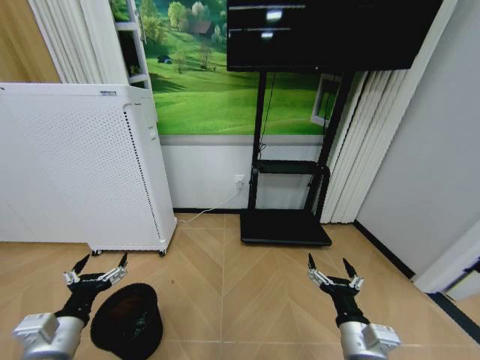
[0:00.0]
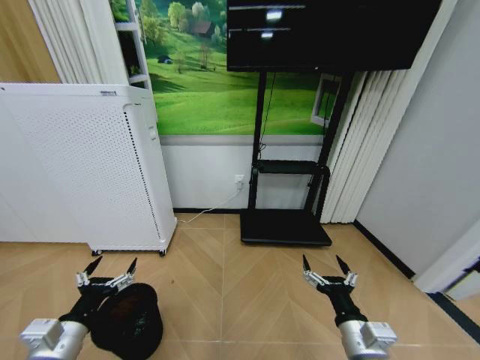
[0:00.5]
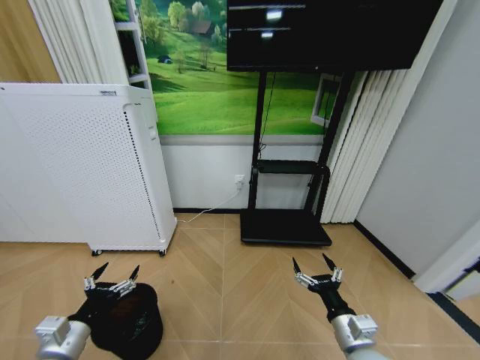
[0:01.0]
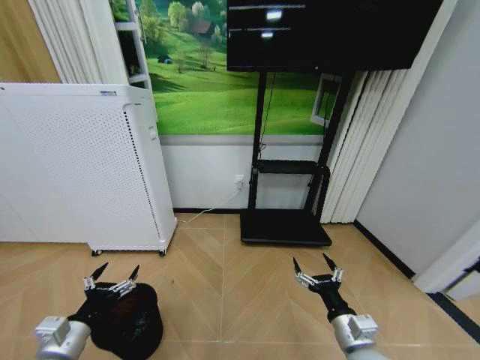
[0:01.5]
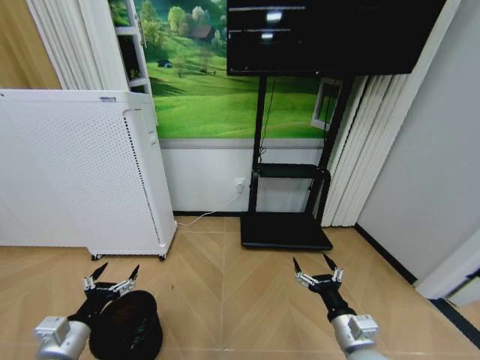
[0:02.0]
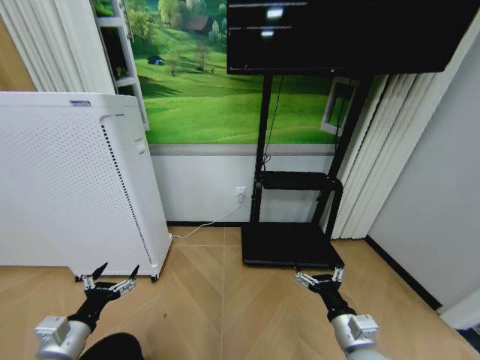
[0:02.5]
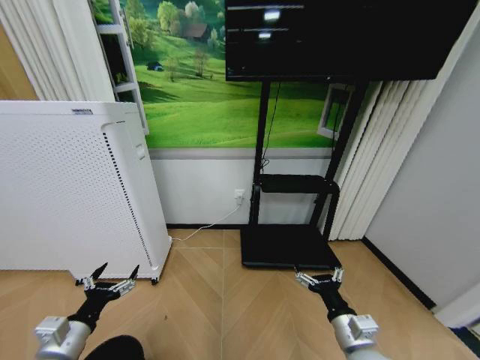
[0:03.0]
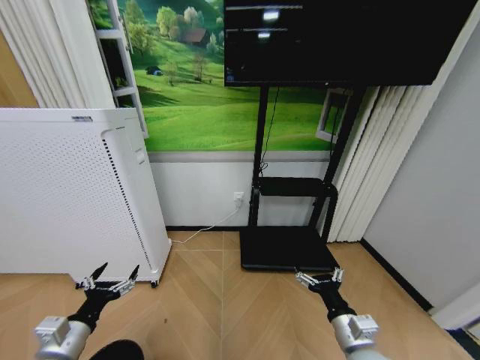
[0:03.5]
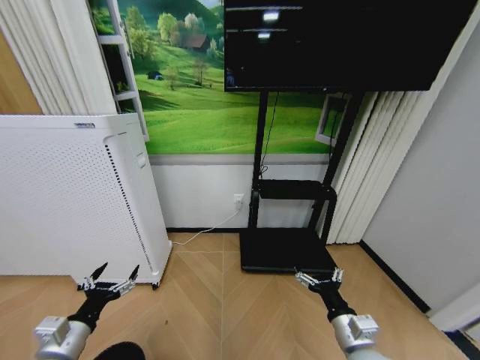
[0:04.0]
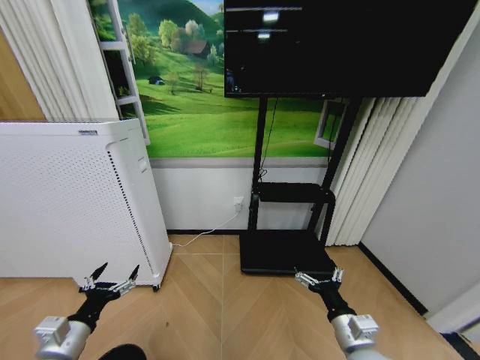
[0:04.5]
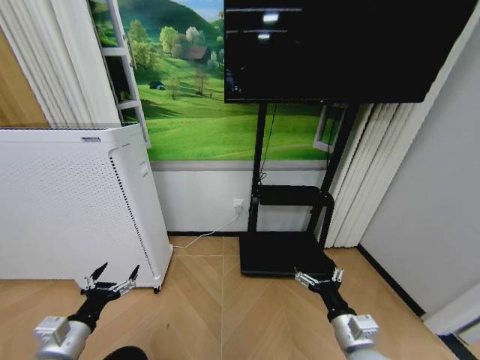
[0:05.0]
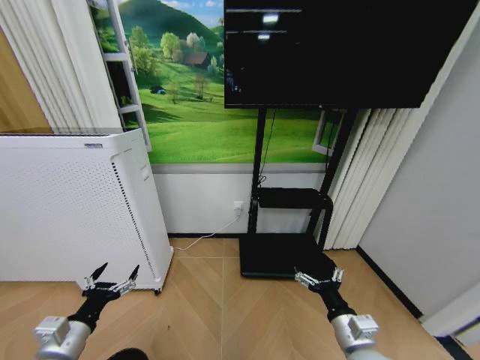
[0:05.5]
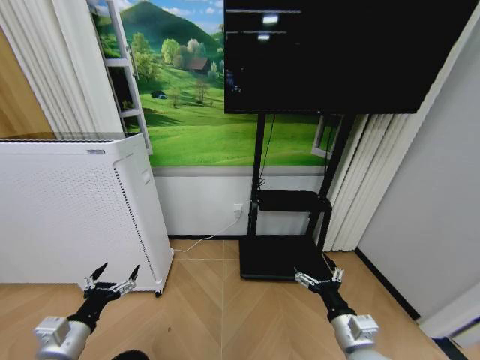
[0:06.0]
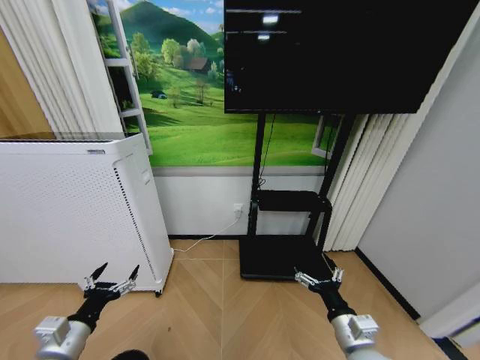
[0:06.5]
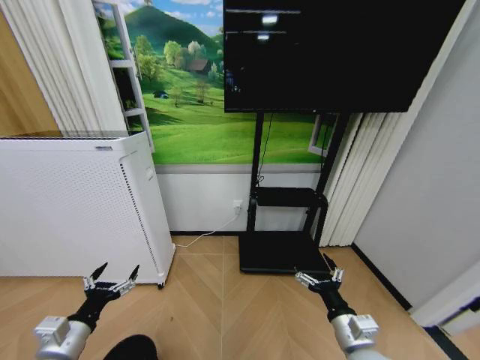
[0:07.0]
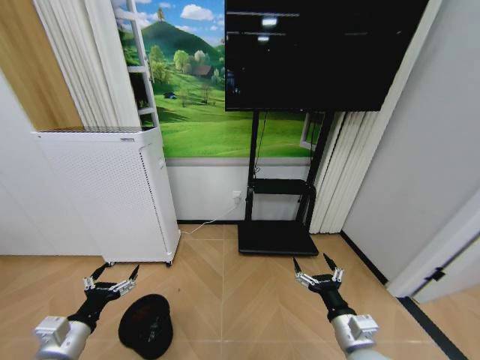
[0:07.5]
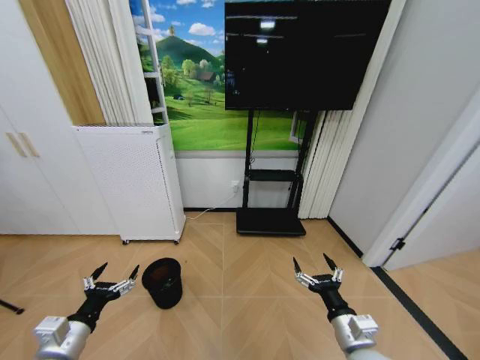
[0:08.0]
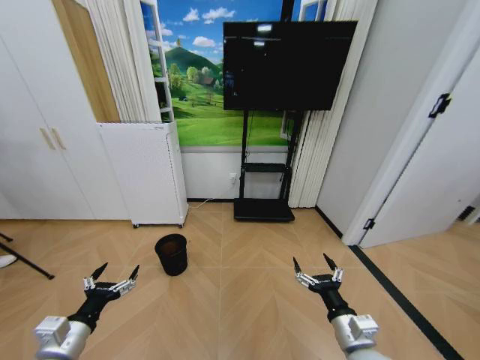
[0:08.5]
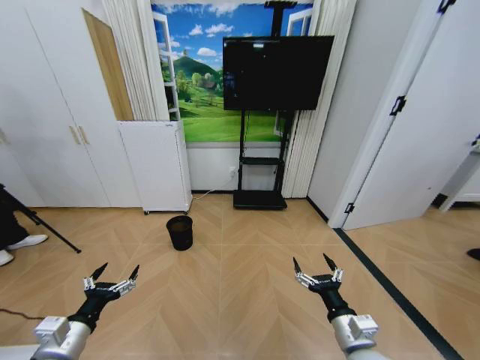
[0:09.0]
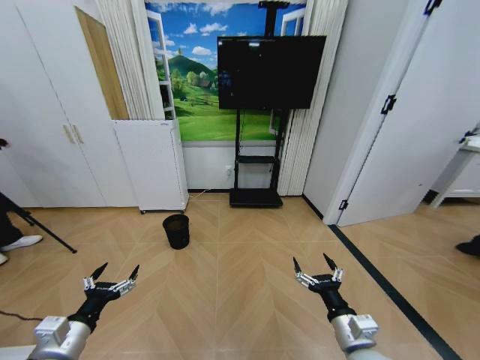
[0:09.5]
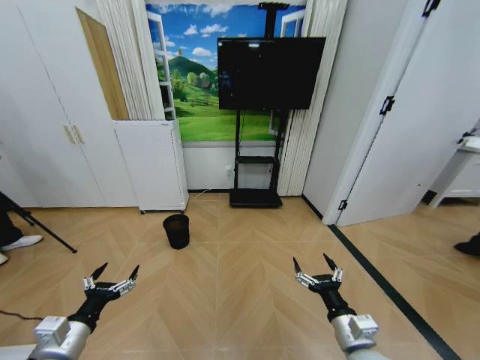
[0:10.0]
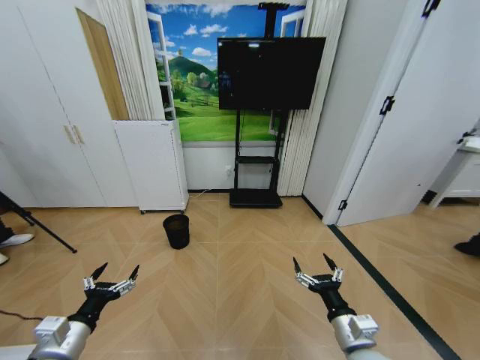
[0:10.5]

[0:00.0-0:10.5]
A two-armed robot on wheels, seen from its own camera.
Task of the whole recording: Pick up the trash bin and place the garbage on the floor into it.
0:00.0 to 0:02.0: The left gripper shifts by roughly 5 cm.
0:04.0 to 0:06.5: Both grippers stay about where they are.

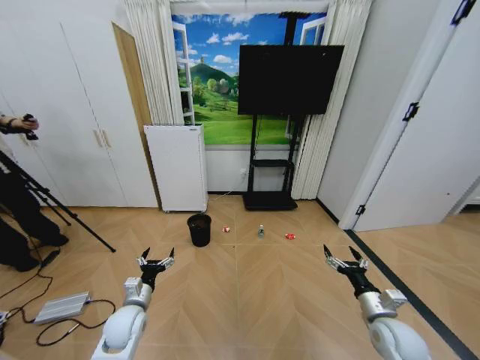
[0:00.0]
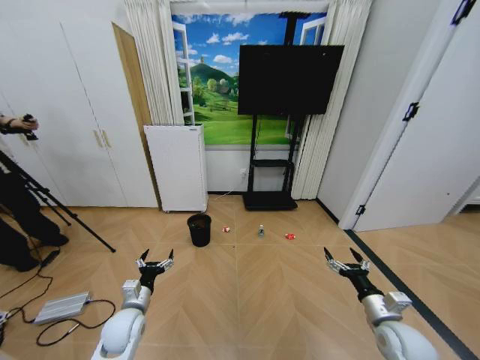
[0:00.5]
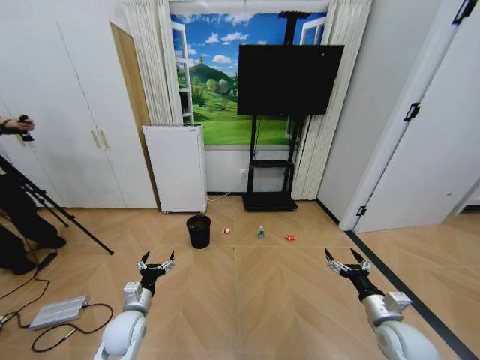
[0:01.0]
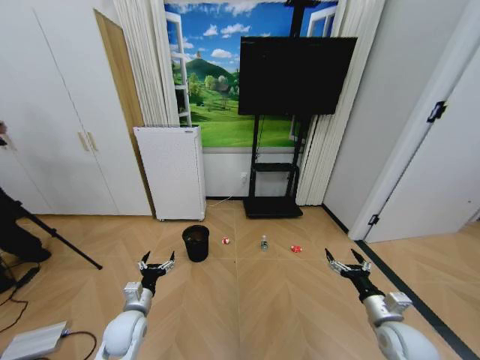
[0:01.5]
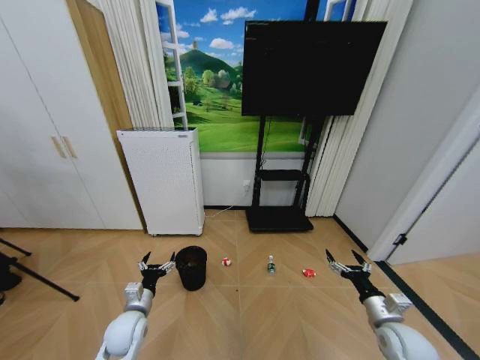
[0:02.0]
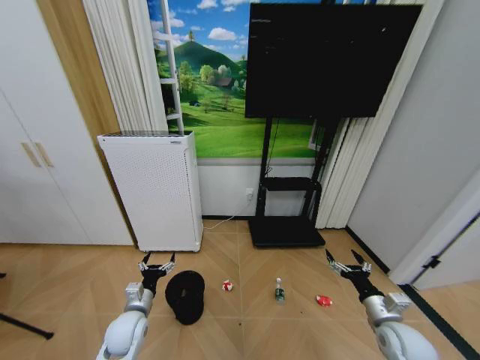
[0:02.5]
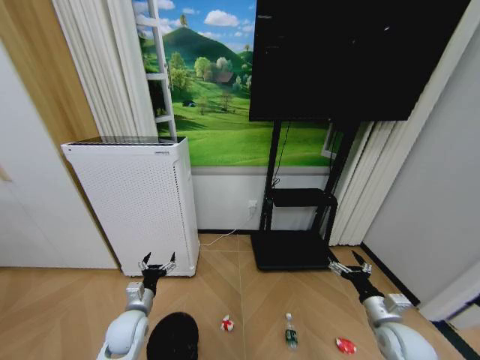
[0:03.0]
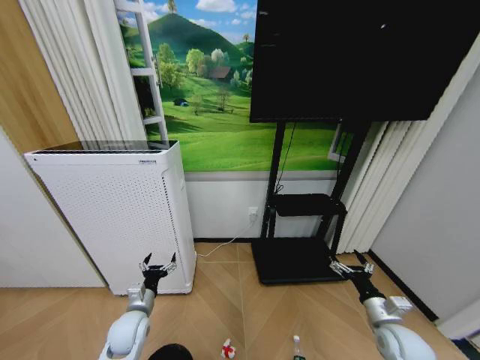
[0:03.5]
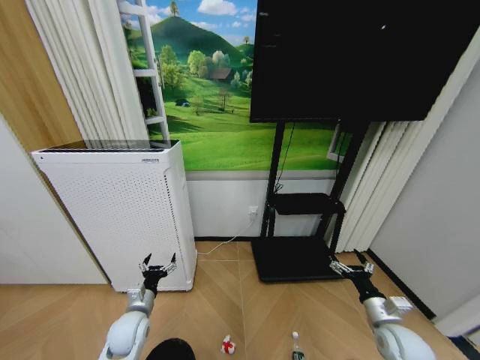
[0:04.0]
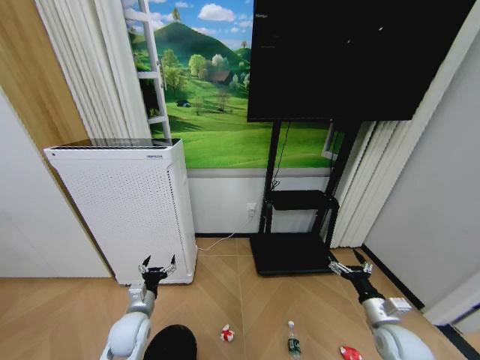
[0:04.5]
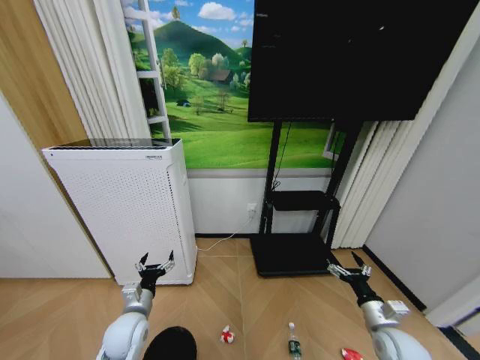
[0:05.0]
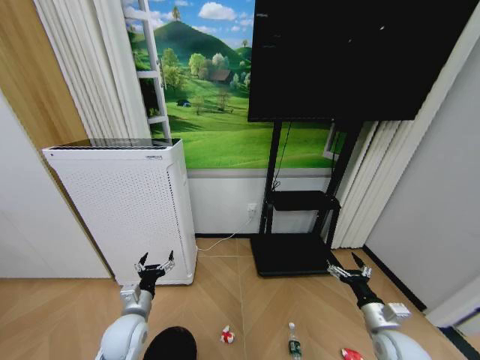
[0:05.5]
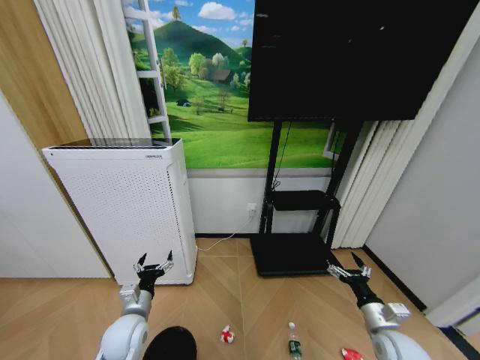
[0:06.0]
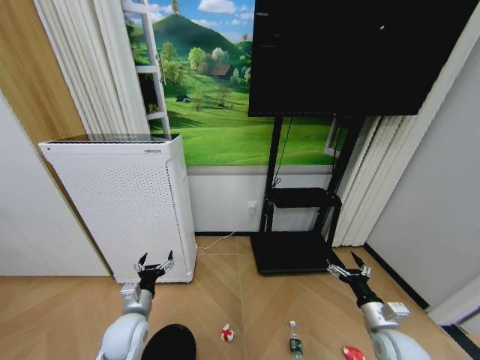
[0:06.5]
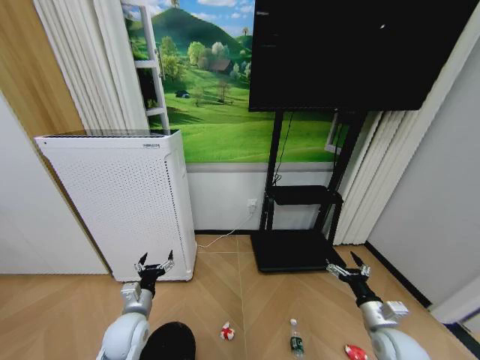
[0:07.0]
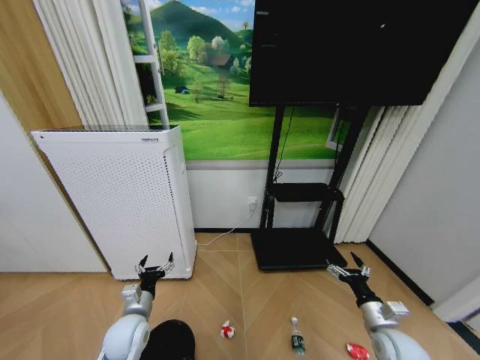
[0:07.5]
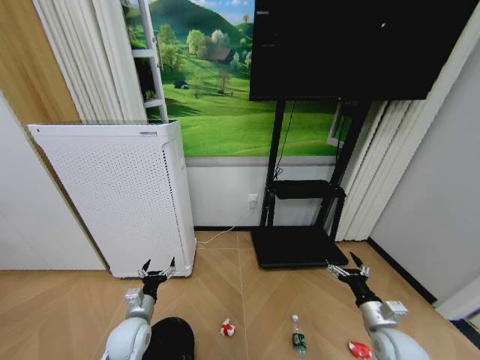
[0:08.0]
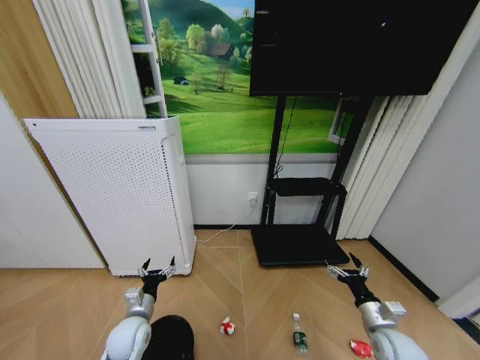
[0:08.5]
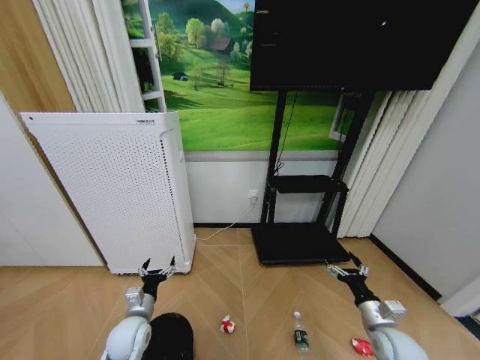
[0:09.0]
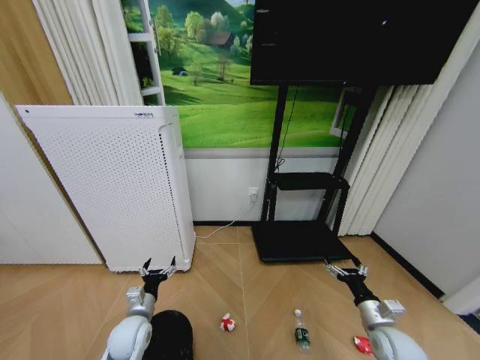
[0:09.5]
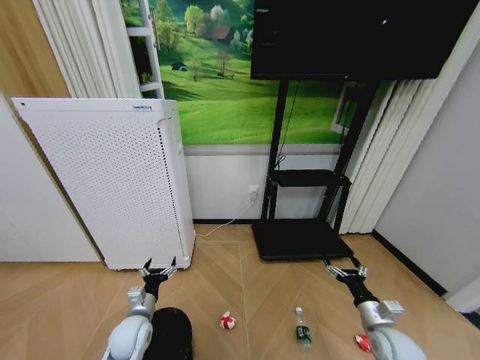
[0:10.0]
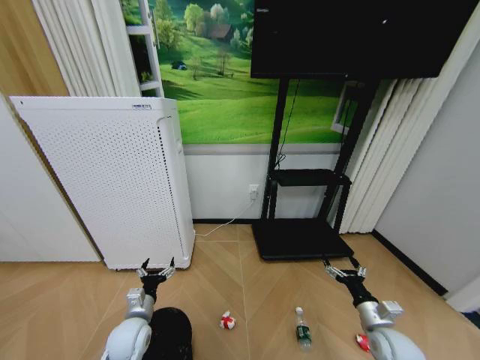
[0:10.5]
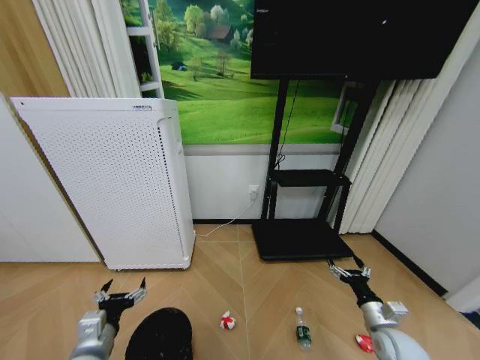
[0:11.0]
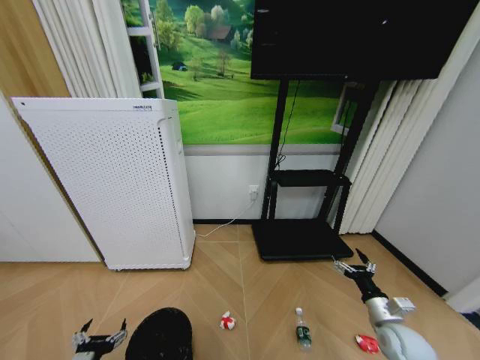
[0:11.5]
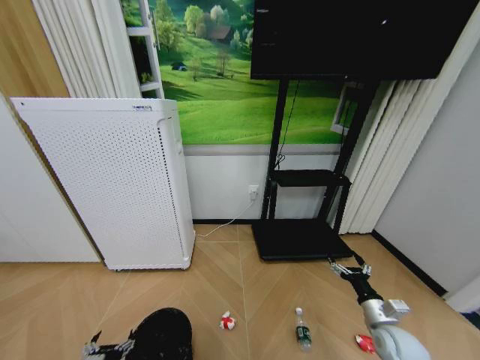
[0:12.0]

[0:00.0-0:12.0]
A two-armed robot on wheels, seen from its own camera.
Task of the whole recording: Pick up the trash bin and place the garbage on the floor into it.
0:04.0 to 0:06.0: The grippers stay close to where they were, moving slightly.
0:08.0 to 0:10.0: Both grippers stay about where they are.
0:10.0 to 0:12.0: The left gripper goes some 15 cm backward.

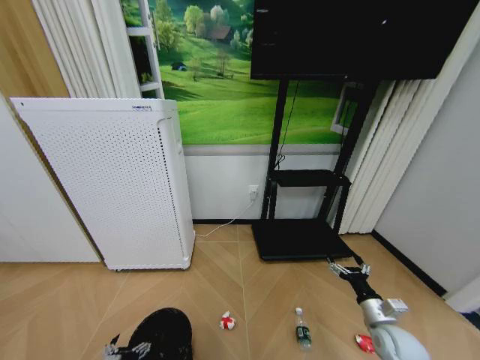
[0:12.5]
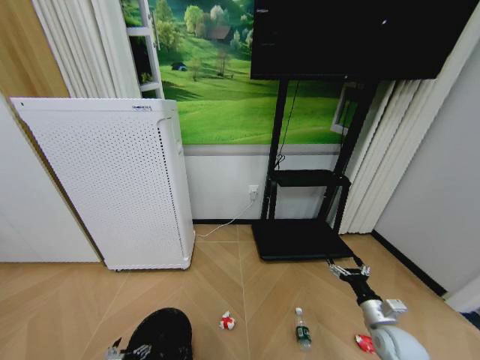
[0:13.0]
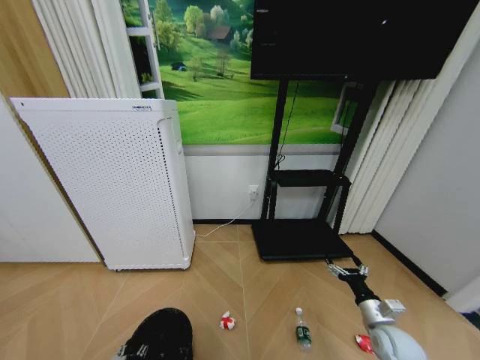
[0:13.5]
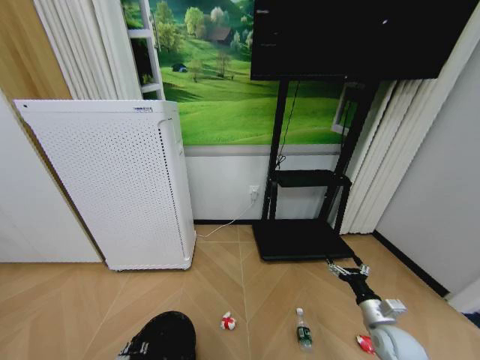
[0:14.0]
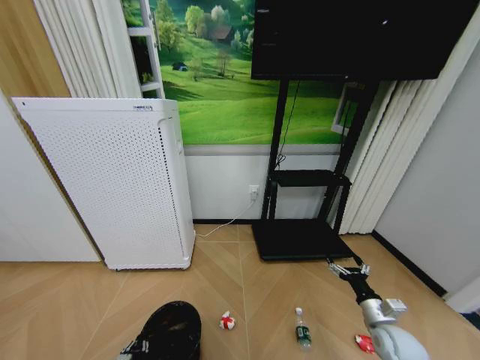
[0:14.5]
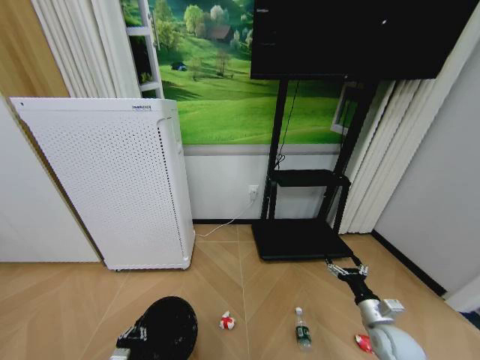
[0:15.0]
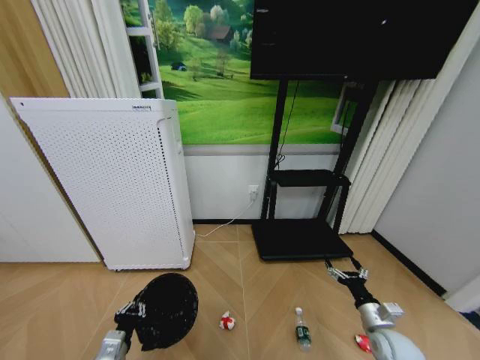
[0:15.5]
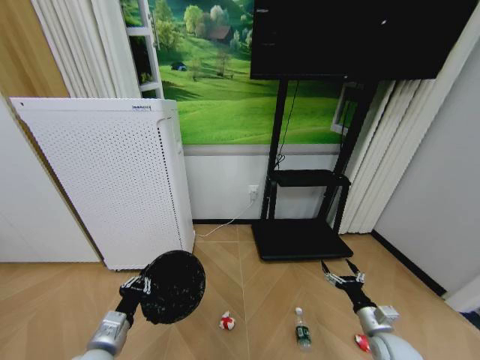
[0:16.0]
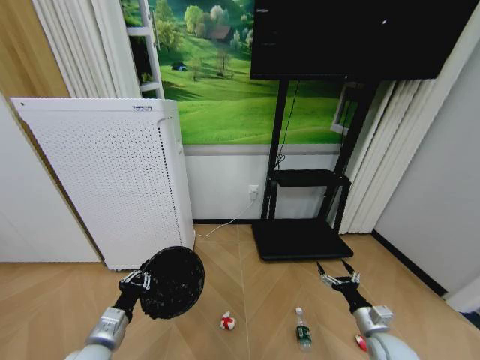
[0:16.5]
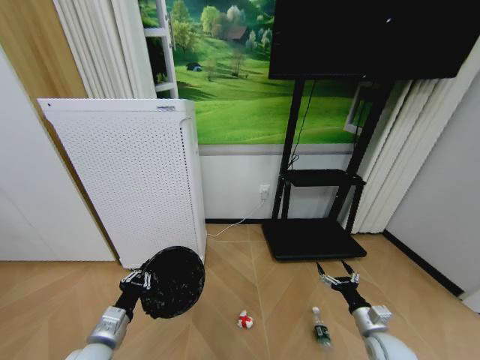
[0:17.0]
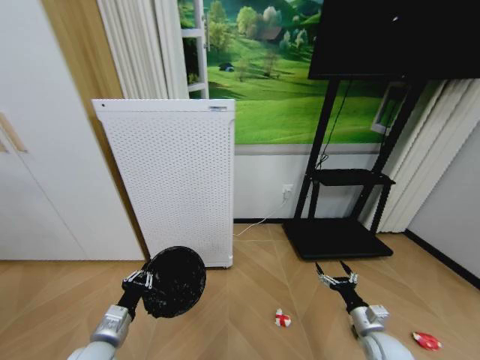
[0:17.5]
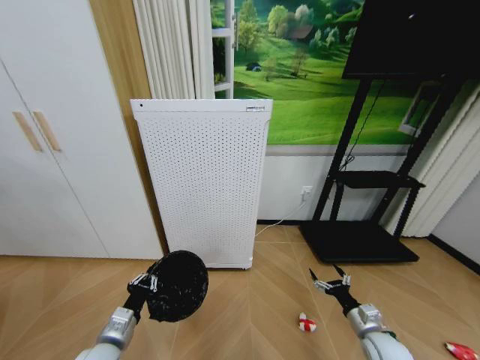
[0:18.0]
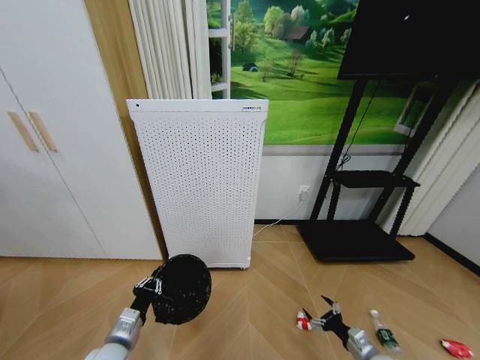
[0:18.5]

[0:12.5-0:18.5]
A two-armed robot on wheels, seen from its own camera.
Task of the whole recording: Pick up the trash bin and place the garbage on the floor into it.
0:12.5 to 0:14.5: The left gripper closes.
0:14.5 to 0:16.5: The left gripper heads upward, covering about 15 cm.
0:16.5 to 0:18.5: The right gripper goes some 5 cm downward.
